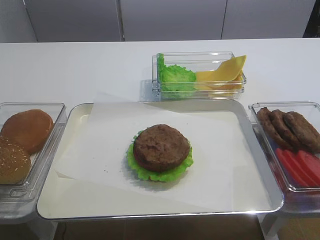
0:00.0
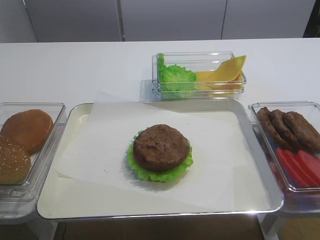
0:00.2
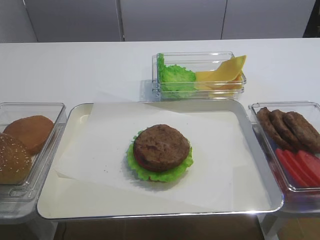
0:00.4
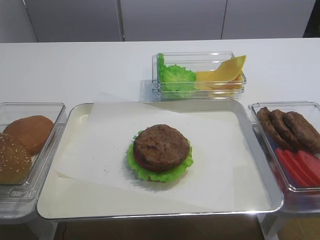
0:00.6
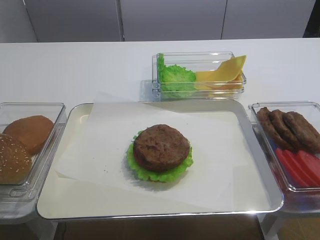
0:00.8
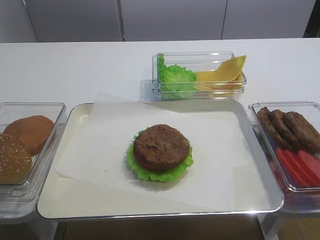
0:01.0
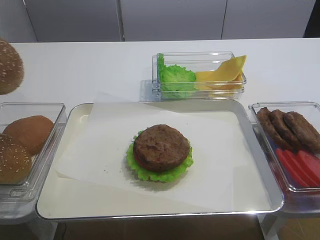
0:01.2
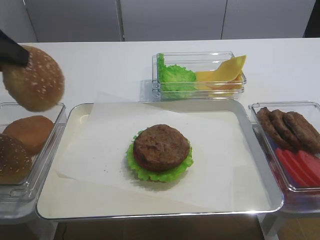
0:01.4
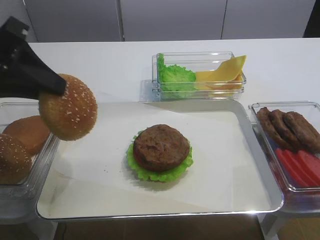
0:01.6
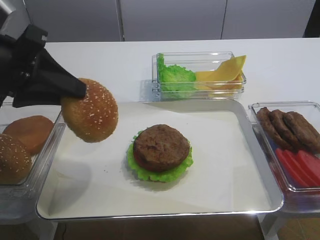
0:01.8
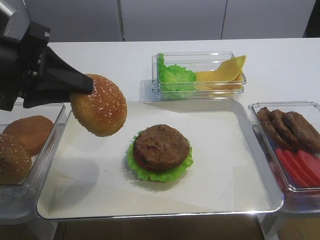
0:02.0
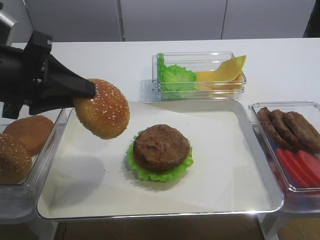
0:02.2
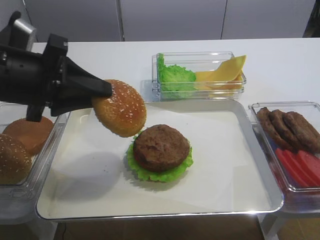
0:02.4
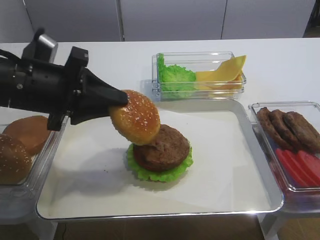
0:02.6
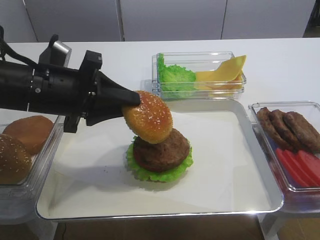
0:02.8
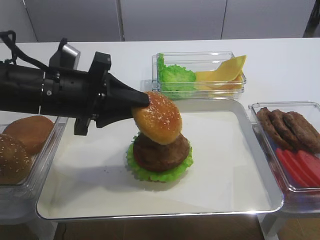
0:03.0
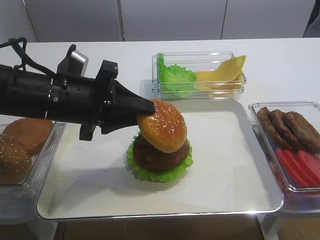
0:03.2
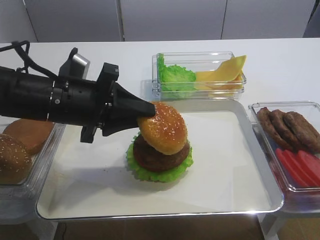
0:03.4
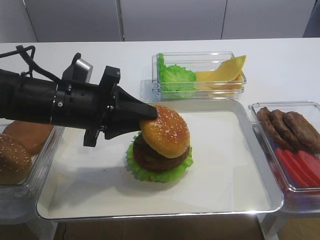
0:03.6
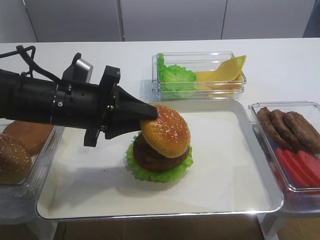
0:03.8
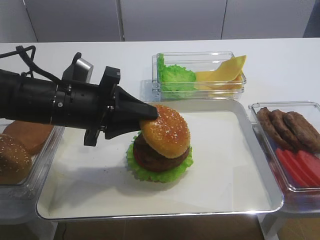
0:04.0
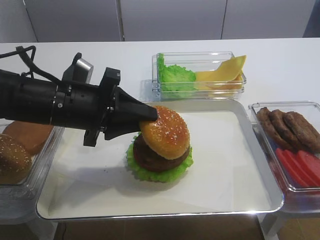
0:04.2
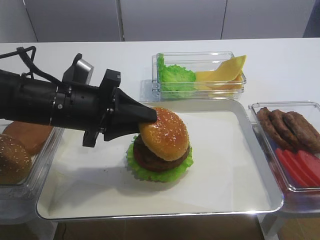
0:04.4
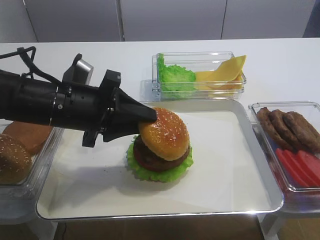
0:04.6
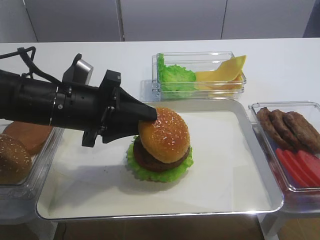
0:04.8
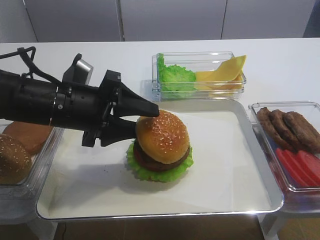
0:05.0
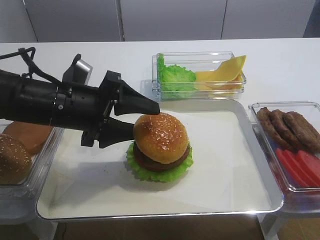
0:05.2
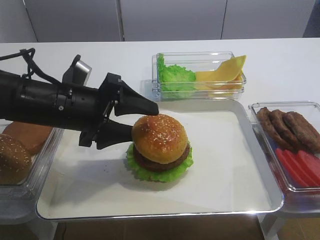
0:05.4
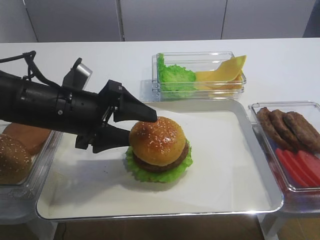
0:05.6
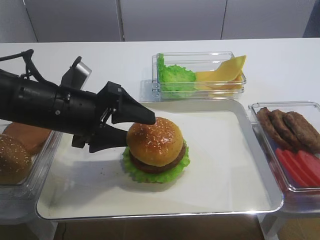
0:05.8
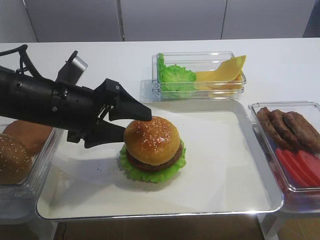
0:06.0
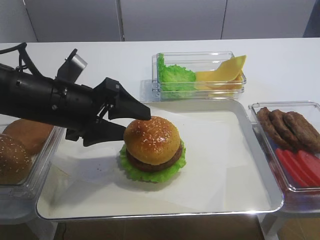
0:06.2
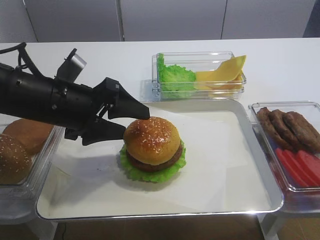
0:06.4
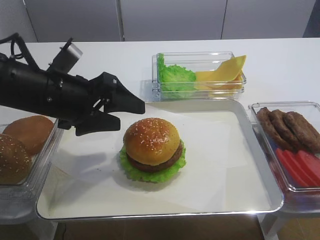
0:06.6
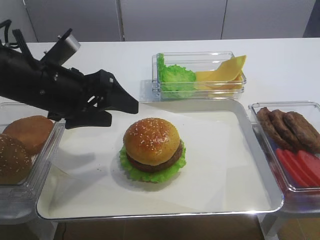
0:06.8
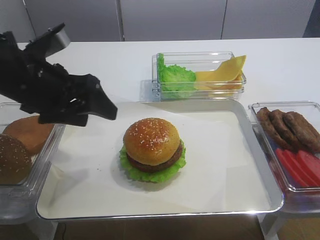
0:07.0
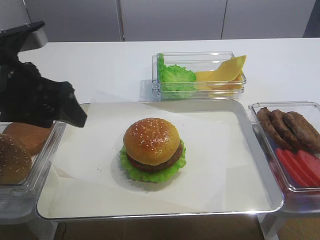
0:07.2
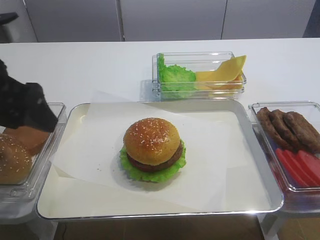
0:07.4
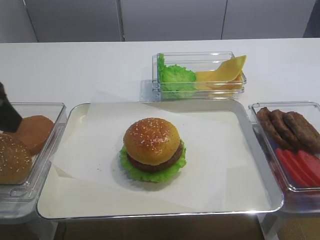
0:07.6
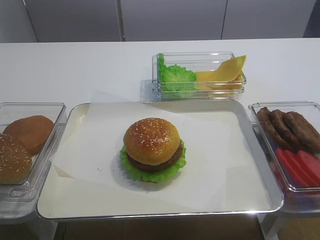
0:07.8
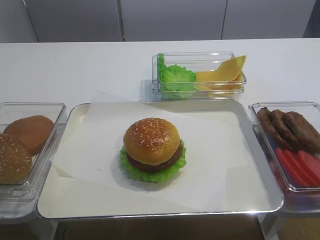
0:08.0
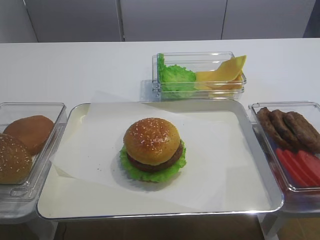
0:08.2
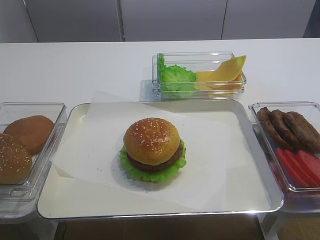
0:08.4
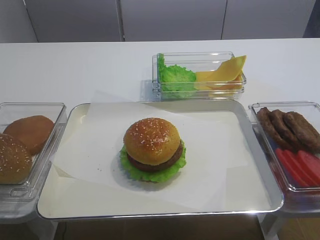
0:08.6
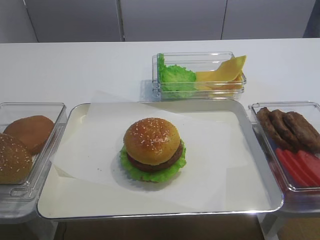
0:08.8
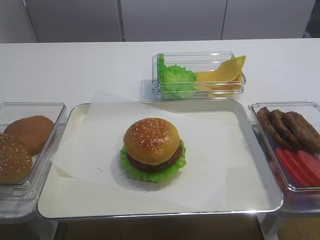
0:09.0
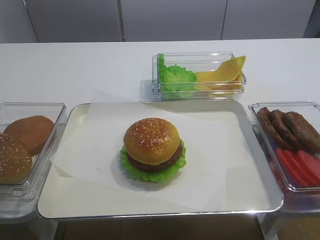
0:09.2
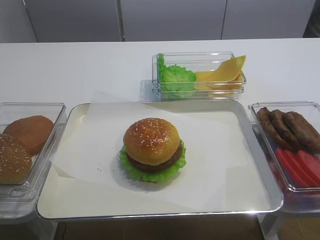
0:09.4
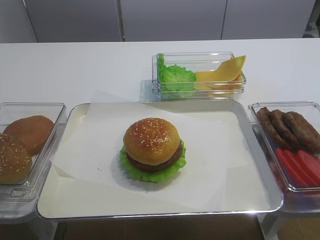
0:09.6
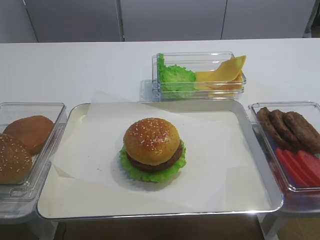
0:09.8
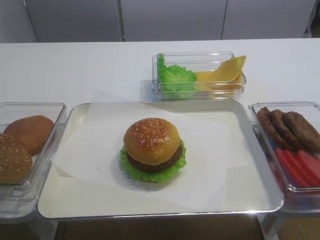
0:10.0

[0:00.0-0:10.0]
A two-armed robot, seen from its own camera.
Step, 0:00.6 to 0:06.4: Place the hamburger lid on the cutlet slice with the left gripper.
0:00.0 to 0:01.4: The left gripper heads upward and to the right, covering roughly 15 cm.
0:01.4 to 0:02.8: The left gripper heads to the right and downward, covering some 15 cm.
0:02.8 to 0:04.2: The grippers move only a little.
0:04.2 to 0:05.8: The left gripper opens.
0:05.8 to 0:07.2: The left gripper is displaced upward and to the left by some 10 cm.
0:07.2 to 0:08.6: The left gripper is displaced backward and to the left by about 25 cm.
